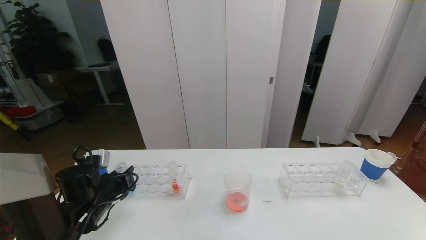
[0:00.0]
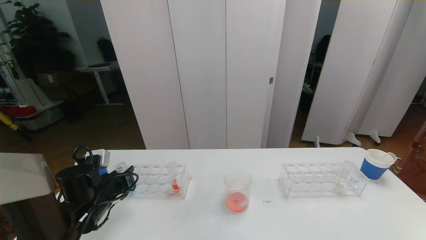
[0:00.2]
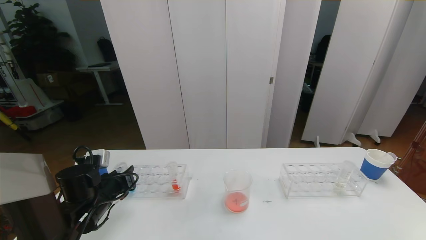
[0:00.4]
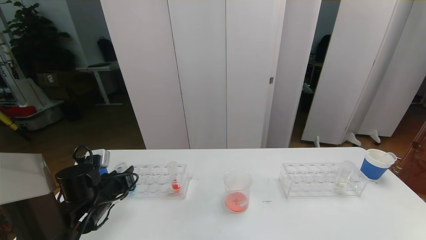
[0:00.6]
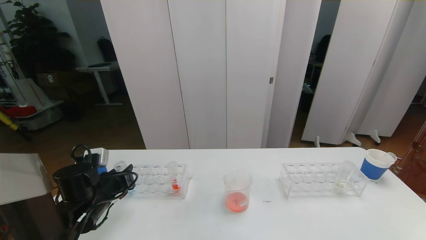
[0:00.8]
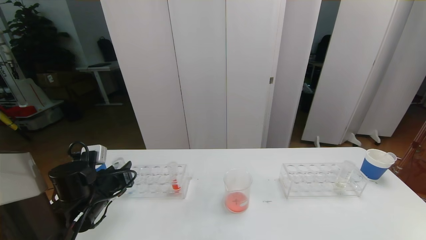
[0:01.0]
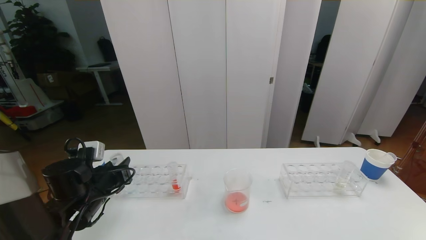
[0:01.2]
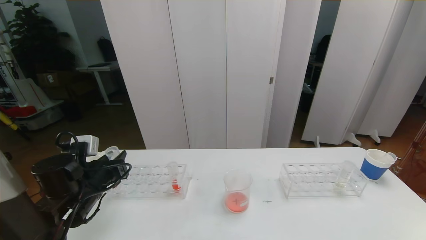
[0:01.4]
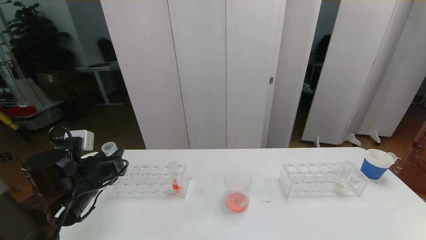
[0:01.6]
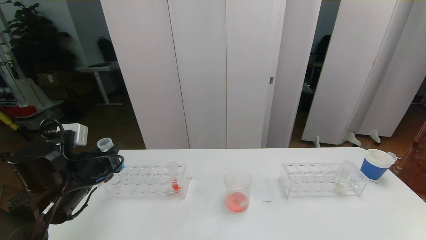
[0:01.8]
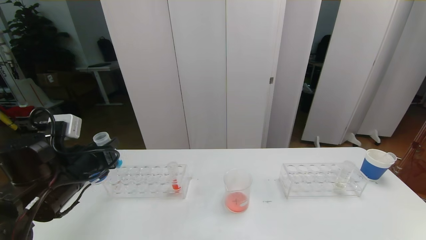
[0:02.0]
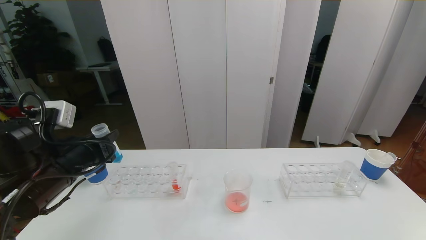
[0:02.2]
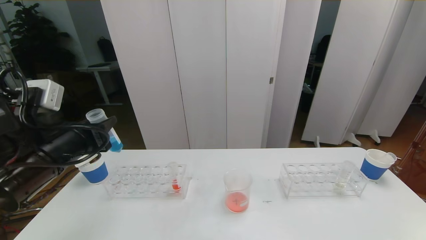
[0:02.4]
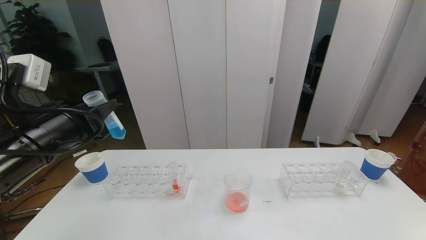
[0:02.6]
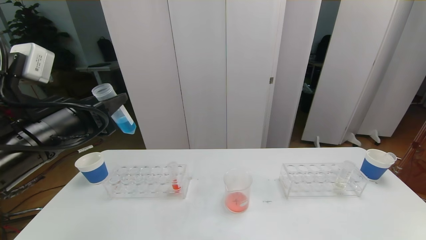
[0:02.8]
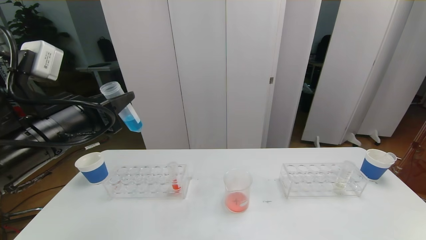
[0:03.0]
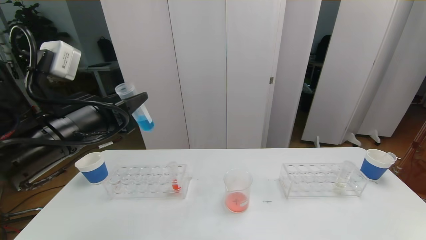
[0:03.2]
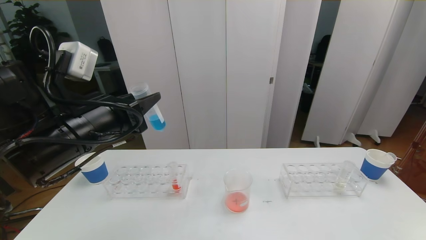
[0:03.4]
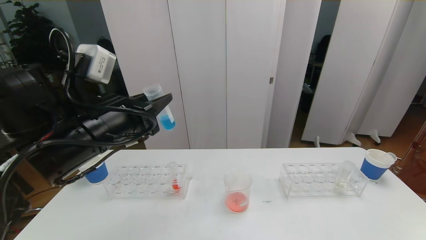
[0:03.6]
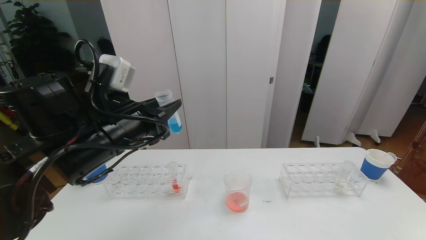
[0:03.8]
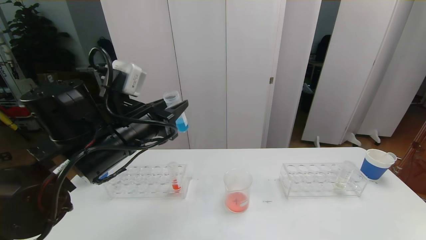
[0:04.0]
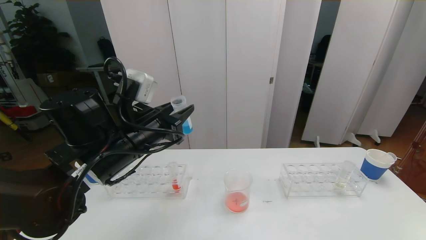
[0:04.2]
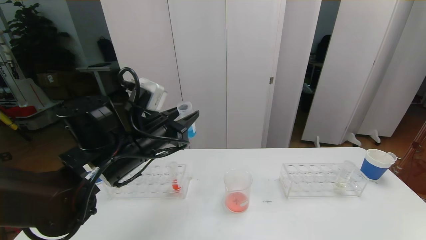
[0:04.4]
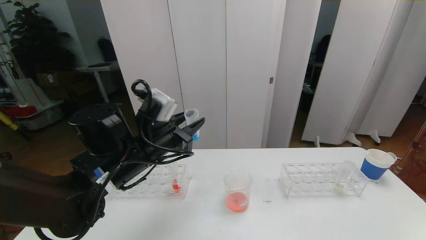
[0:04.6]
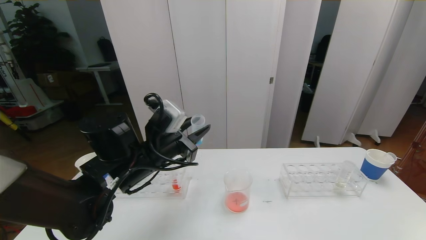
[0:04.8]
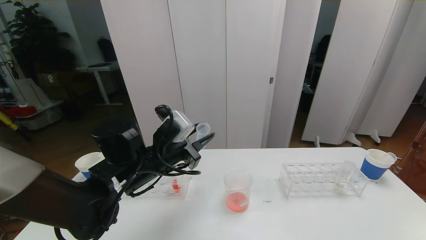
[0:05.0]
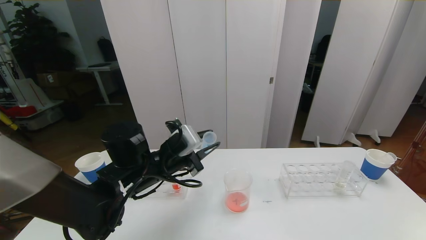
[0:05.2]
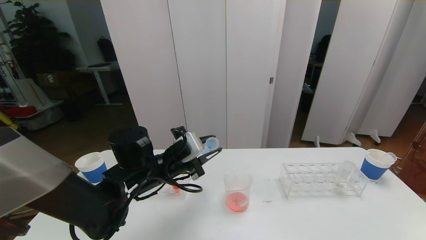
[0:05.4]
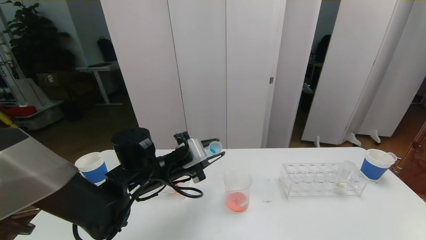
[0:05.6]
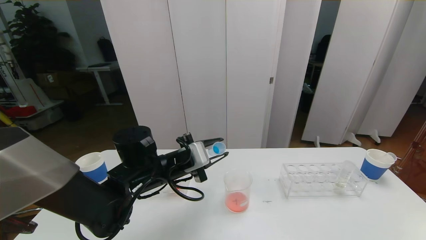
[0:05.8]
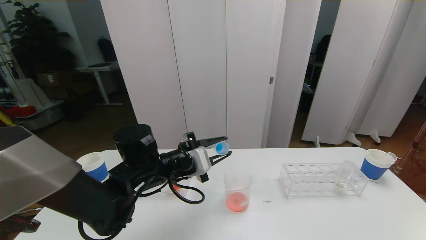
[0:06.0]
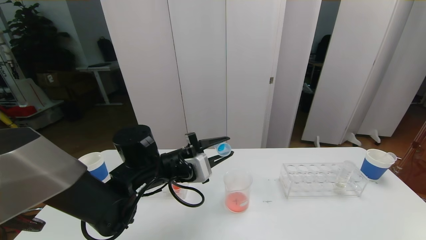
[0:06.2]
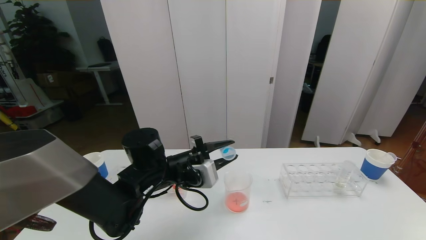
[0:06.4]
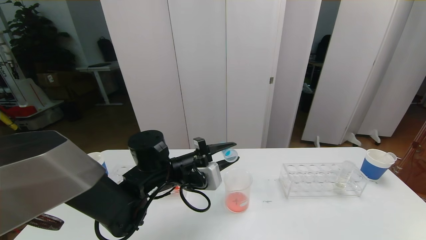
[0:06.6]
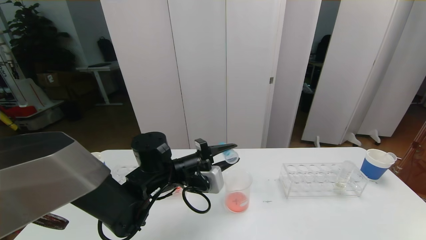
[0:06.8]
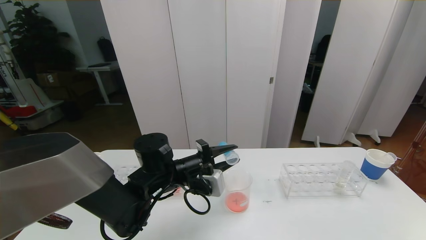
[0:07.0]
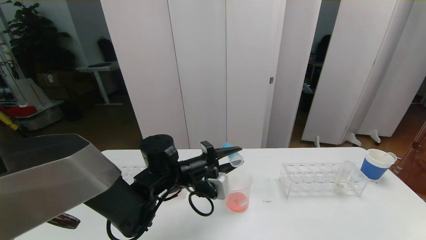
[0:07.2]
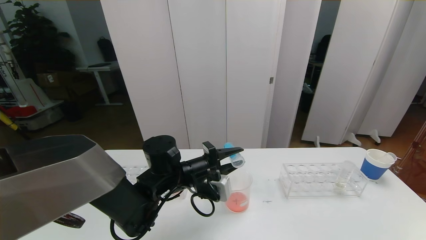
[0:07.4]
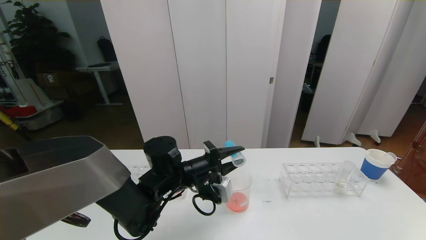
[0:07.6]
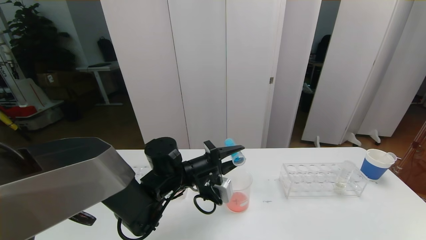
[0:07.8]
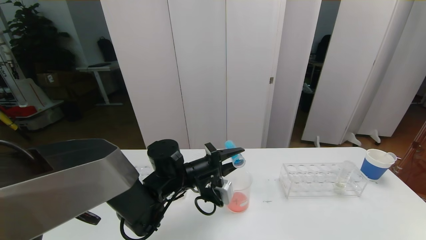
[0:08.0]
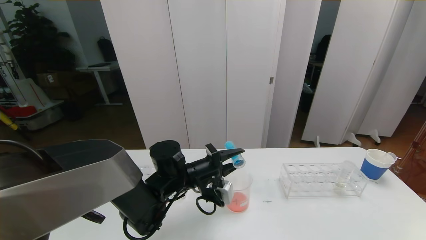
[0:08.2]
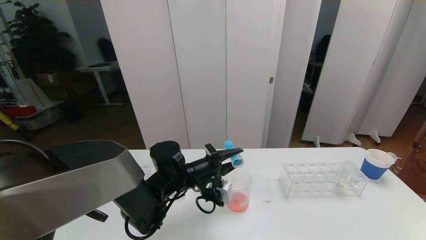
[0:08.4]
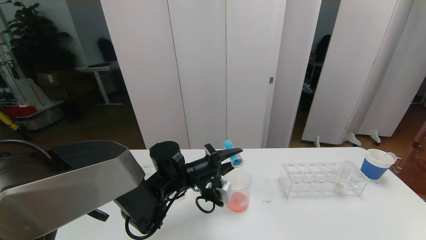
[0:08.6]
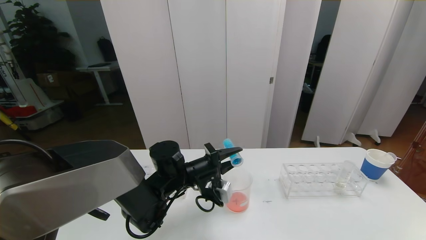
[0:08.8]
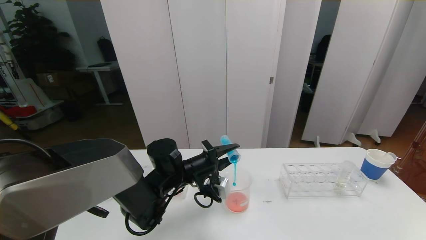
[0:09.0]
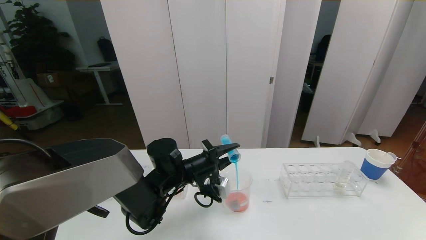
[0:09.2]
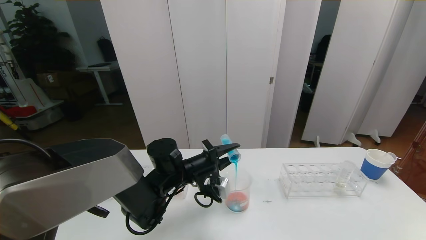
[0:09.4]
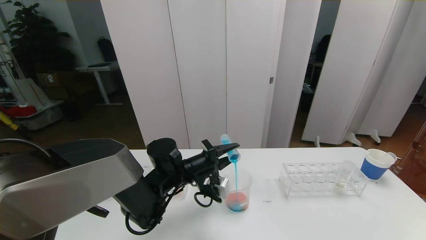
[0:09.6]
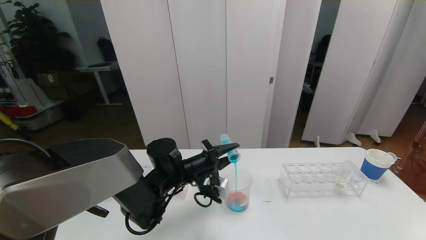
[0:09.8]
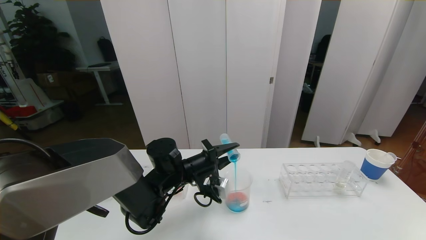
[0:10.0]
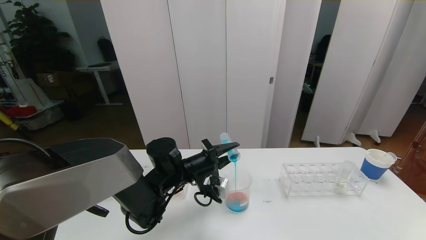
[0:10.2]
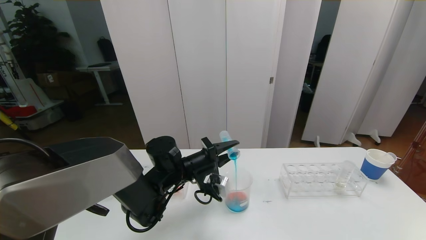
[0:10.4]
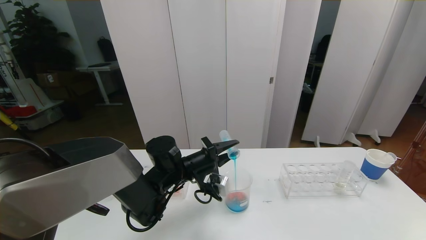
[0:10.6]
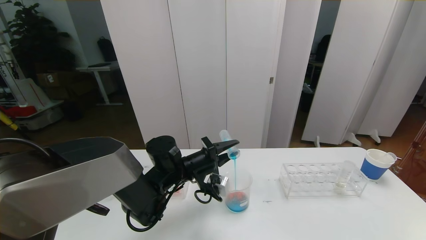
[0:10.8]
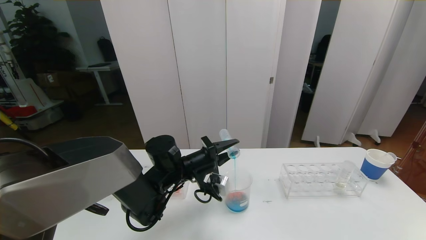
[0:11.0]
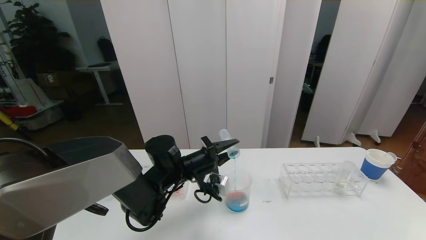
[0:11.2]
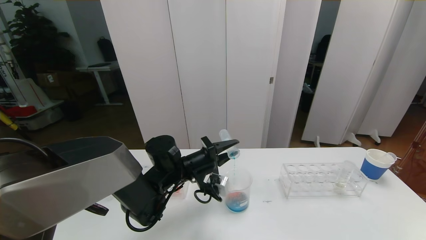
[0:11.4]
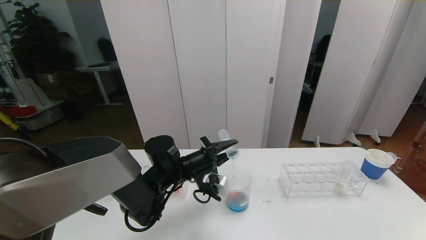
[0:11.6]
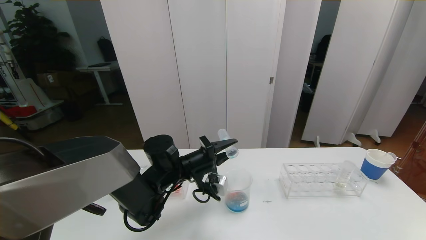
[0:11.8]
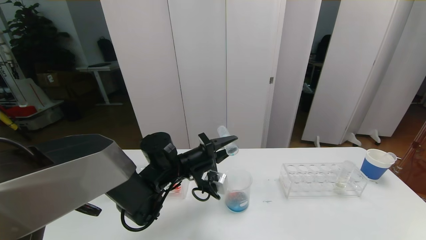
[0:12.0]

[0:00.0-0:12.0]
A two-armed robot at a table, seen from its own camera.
Task of the whole recording: pick up the test tube with red pigment the test tube with blue pigment and the test tube with white pigment by grippers and pour them into the beaker.
0:00.0 to 0:01.6: The left gripper travels upward by about 5 cm.
0:01.6 to 0:03.0: The left gripper heads upward, covering roughly 15 cm.
0:03.0 to 0:04.4: The left gripper shifts some 10 cm to the right, downward and forward.
0:04.4 to 0:06.0: The left gripper moves downward, some 5 cm.
0:06.0 to 0:07.6: The left gripper shifts by approximately 5 cm.
0:07.6 to 0:09.0: The grippers move only a little.
0:09.0 to 0:10.4: Both grippers stay put.
0:10.4 to 0:12.0: The grippers move only a little.

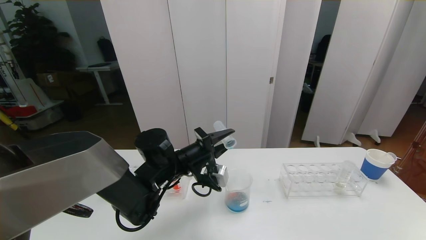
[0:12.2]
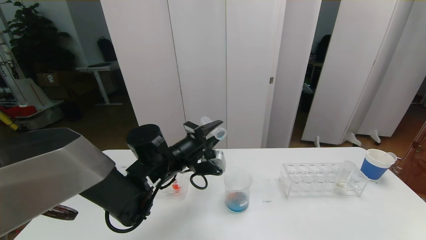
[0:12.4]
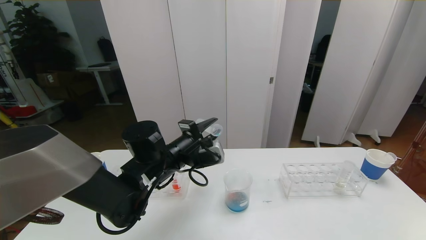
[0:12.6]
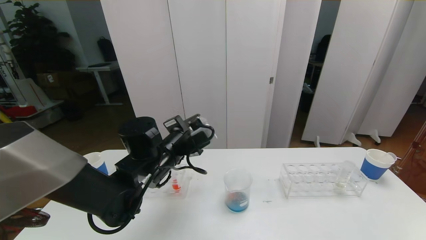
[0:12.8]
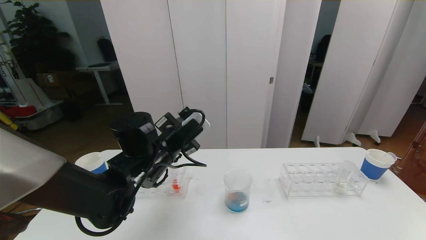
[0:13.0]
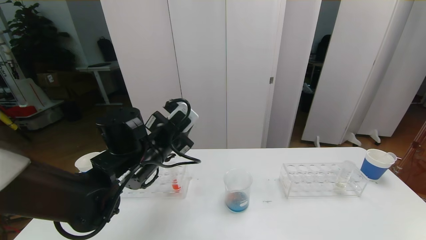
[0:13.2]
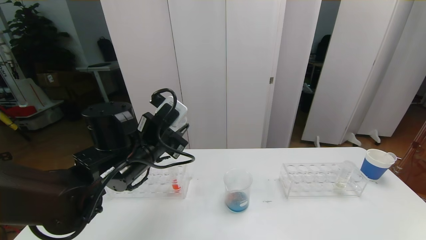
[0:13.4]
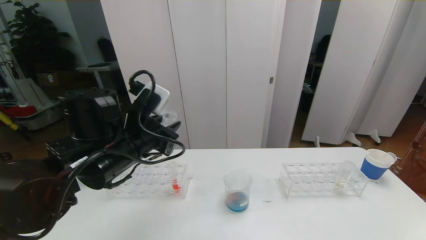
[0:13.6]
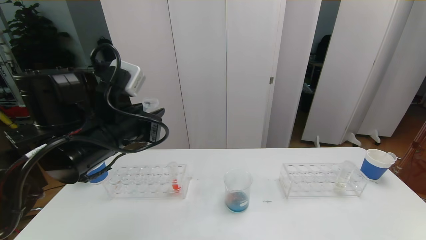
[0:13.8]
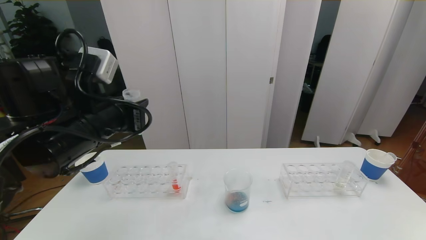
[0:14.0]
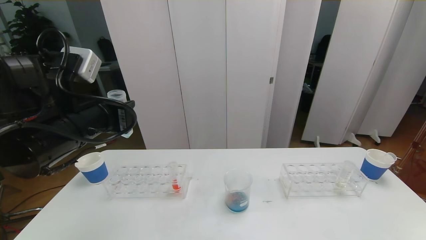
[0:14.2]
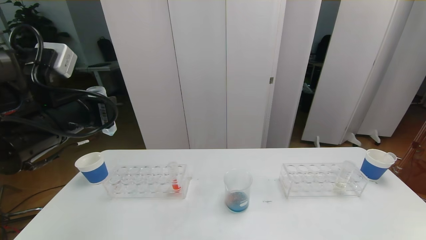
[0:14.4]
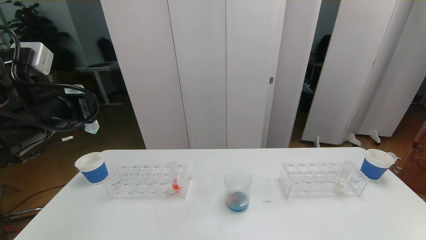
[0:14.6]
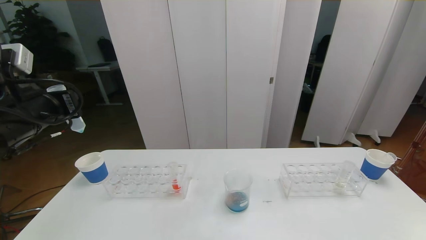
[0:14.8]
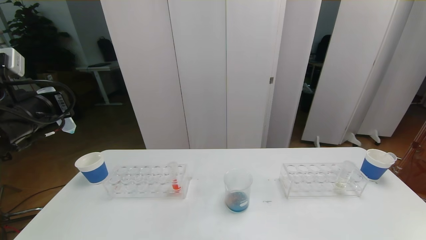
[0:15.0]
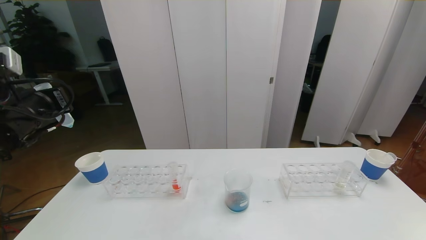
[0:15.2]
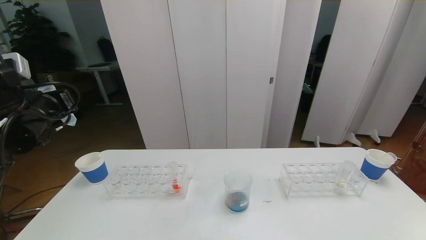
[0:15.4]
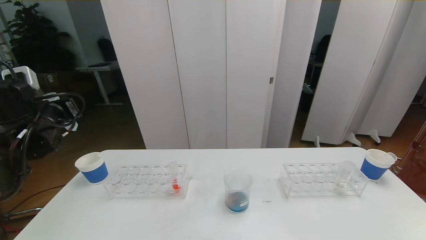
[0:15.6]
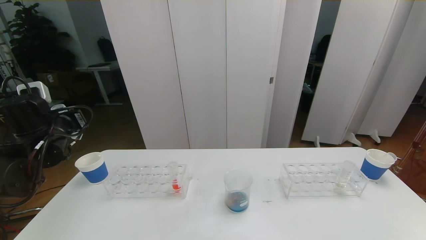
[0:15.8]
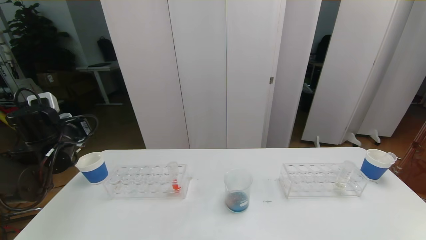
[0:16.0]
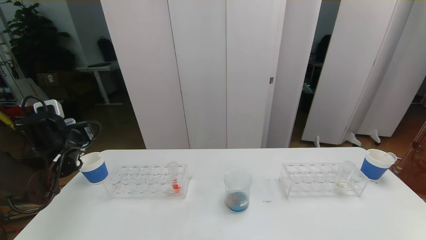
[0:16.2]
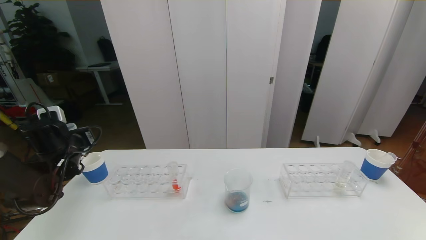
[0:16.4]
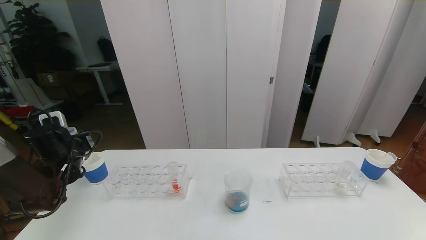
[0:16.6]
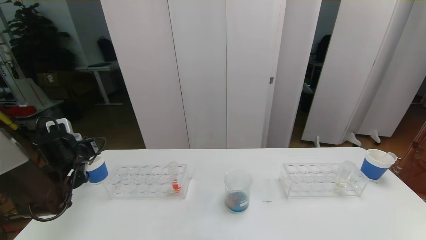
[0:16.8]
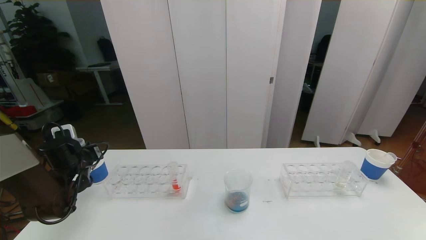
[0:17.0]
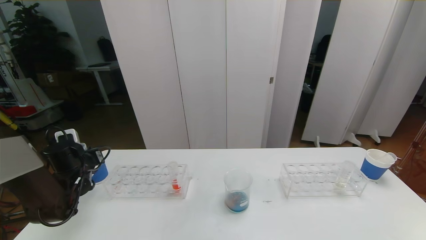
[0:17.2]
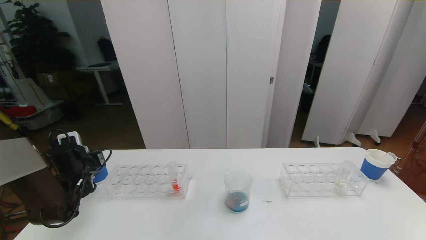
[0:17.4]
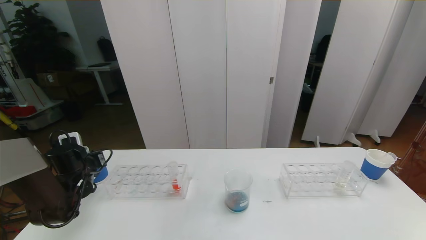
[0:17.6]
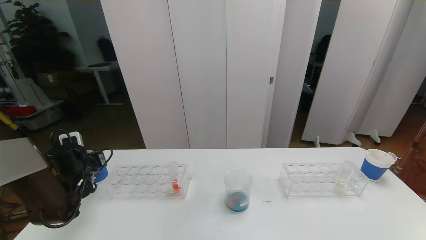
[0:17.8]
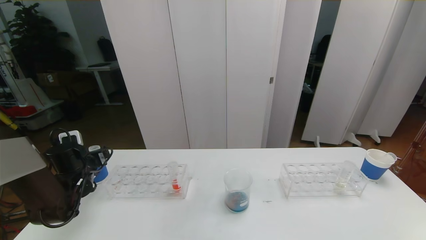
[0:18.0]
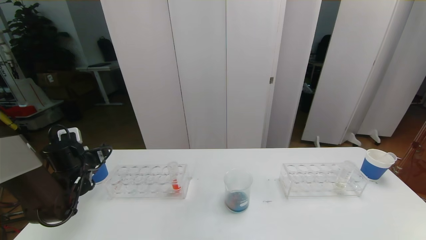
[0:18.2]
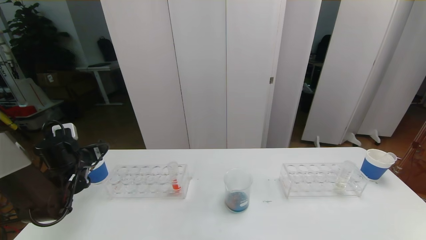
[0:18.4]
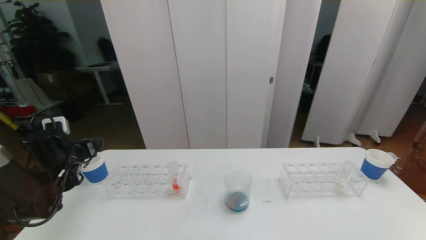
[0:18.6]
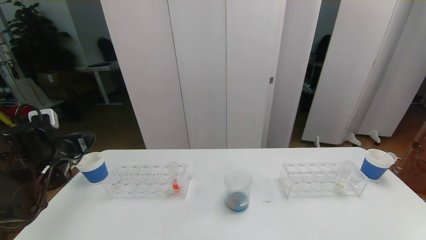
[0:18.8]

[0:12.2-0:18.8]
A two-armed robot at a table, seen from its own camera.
Task of the whole recording: pick up the test tube with red pigment the test tube with blue pigment and the test tube with white pigment by grippers and pour them into the beaker.
0:12.2 to 0:13.8: The left gripper shifts about 15 cm upward, backward and to the left.
0:13.8 to 0:15.4: The left gripper travels to the left by about 15 cm.
0:15.4 to 0:17.2: The left gripper shifts about 20 cm downward.
0:17.2 to 0:18.8: The left gripper moves upward, some 10 cm, and opens.
